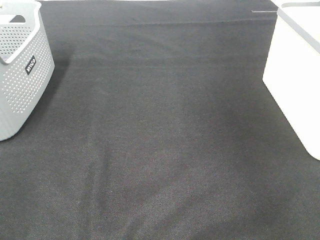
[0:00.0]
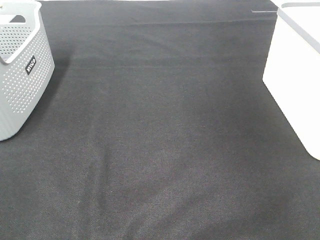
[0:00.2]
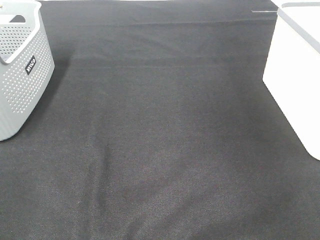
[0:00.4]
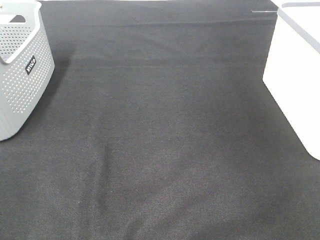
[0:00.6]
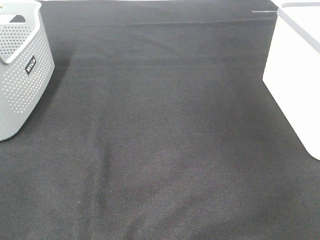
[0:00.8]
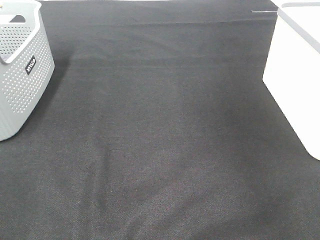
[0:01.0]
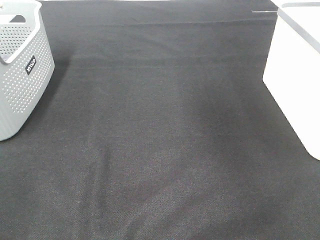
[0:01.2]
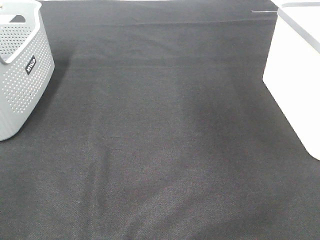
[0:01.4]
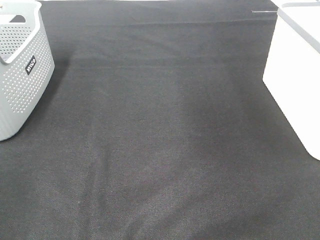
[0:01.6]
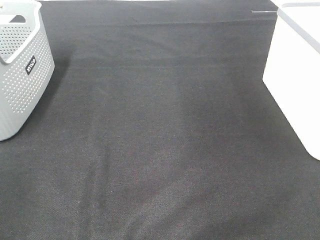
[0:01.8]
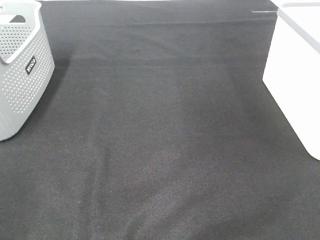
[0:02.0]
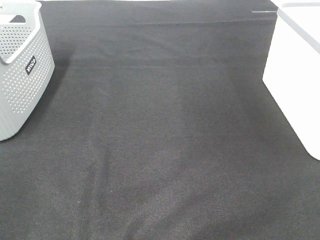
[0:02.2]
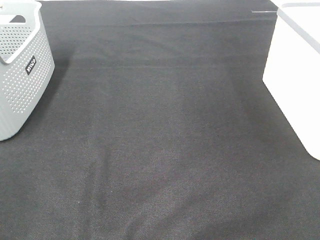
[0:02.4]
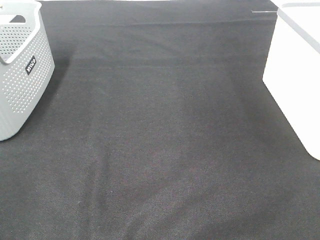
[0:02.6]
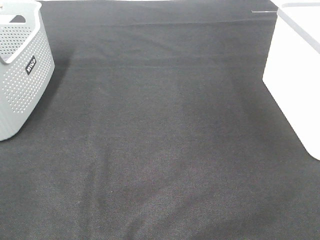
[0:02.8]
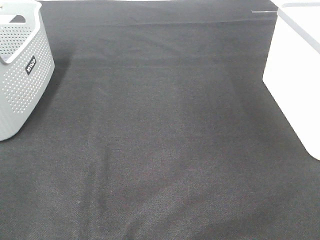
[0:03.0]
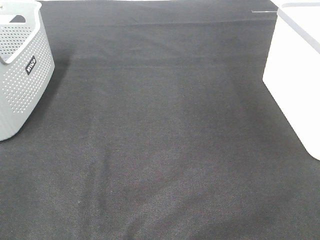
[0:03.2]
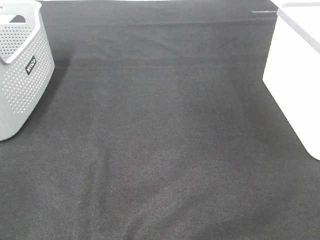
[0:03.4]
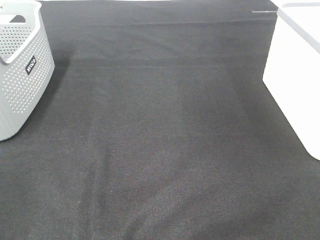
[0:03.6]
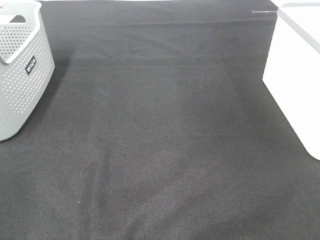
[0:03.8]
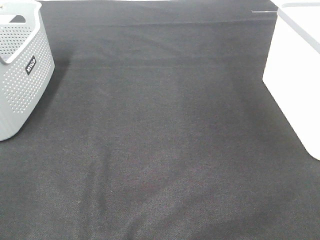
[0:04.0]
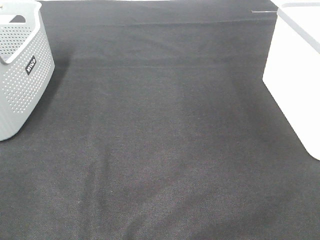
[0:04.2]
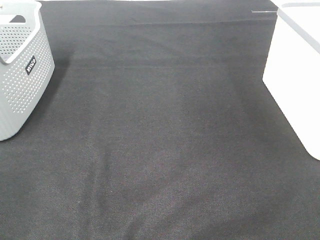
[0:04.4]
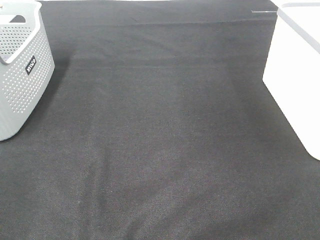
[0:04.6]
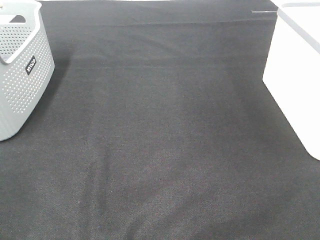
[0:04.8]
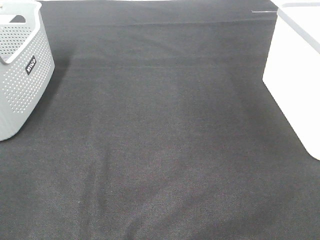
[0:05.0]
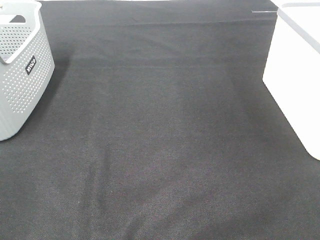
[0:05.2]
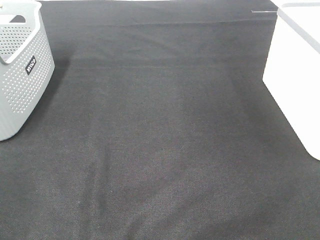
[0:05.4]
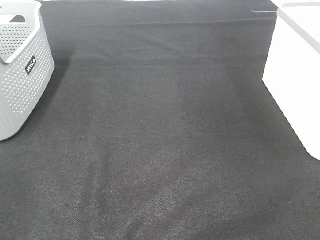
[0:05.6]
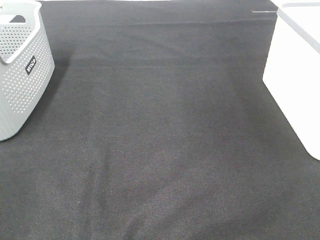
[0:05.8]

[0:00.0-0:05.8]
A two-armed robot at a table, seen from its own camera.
4.4 to 5.8 s: The two grippers keep their place.

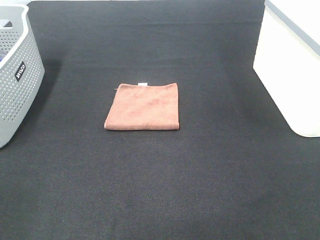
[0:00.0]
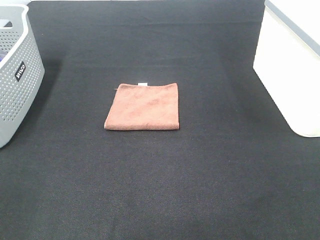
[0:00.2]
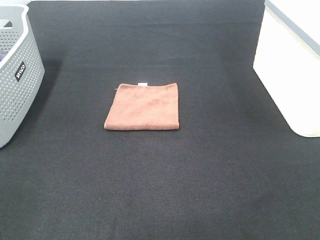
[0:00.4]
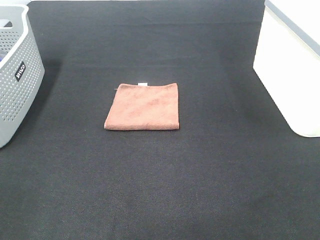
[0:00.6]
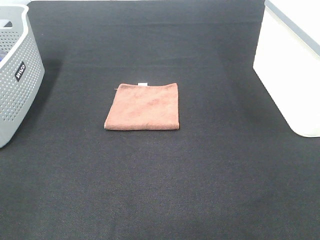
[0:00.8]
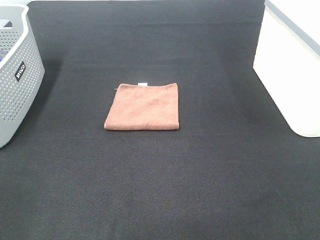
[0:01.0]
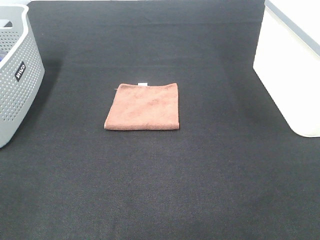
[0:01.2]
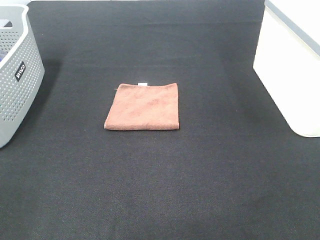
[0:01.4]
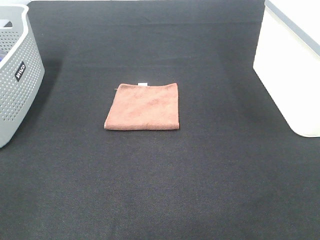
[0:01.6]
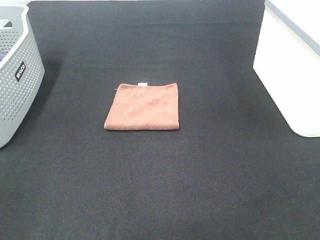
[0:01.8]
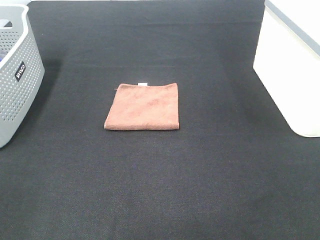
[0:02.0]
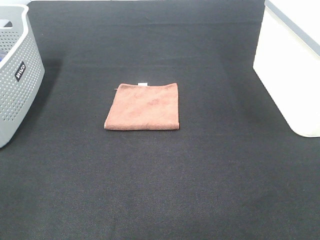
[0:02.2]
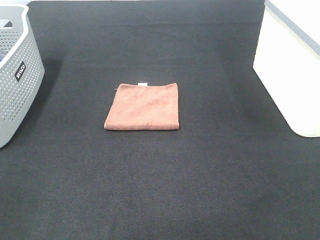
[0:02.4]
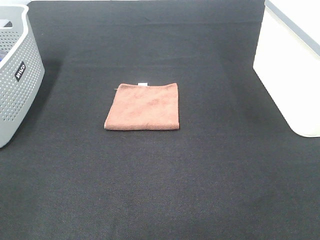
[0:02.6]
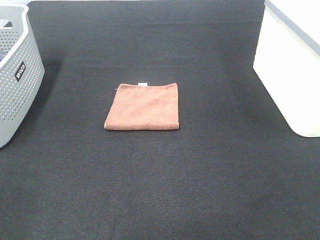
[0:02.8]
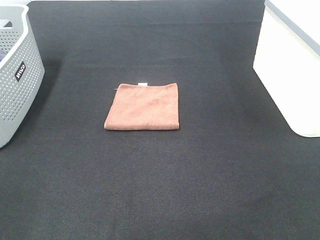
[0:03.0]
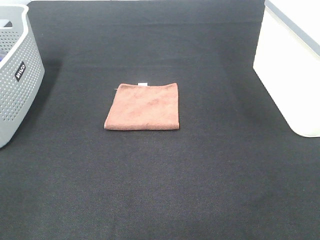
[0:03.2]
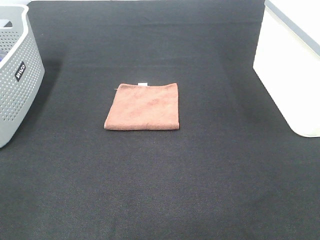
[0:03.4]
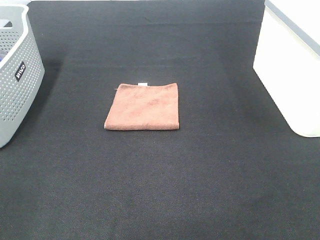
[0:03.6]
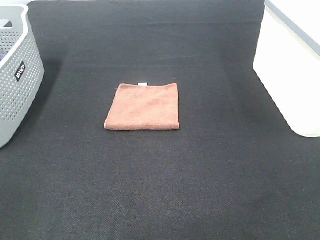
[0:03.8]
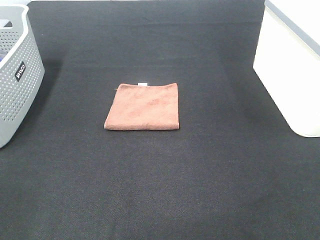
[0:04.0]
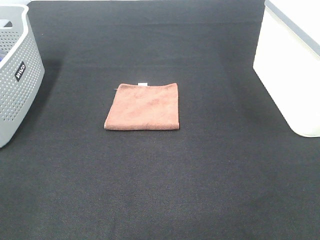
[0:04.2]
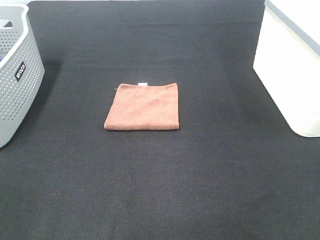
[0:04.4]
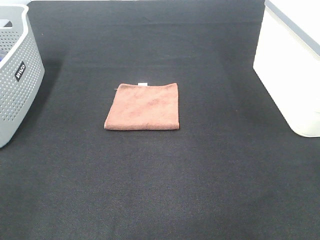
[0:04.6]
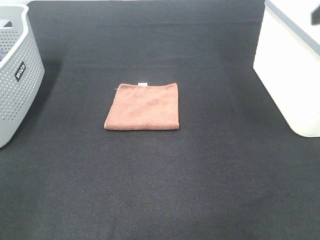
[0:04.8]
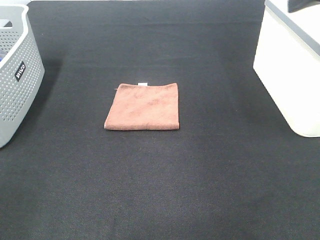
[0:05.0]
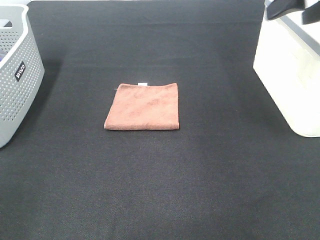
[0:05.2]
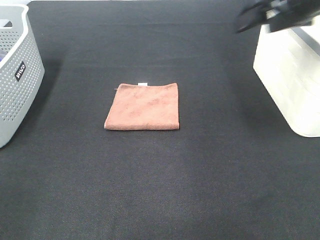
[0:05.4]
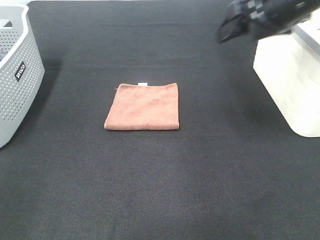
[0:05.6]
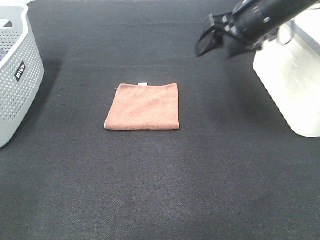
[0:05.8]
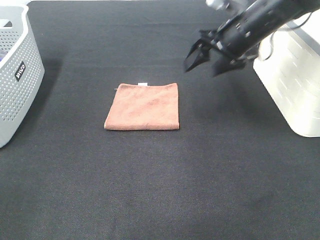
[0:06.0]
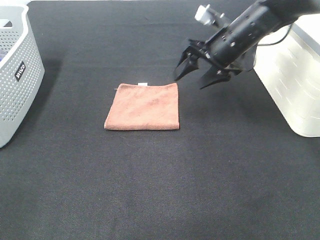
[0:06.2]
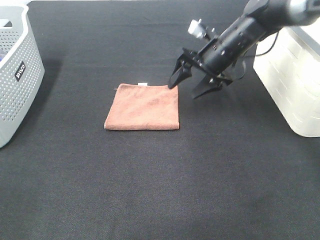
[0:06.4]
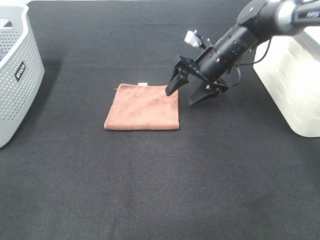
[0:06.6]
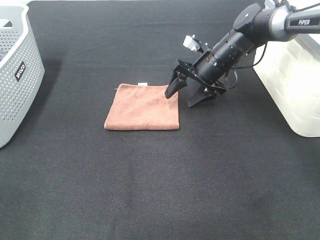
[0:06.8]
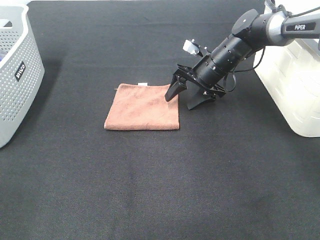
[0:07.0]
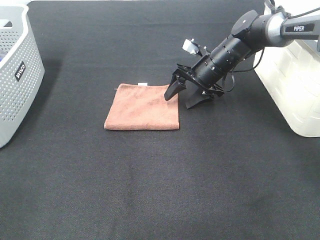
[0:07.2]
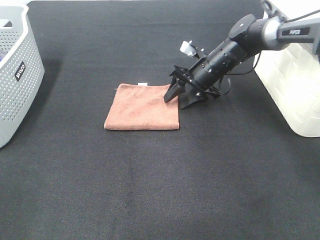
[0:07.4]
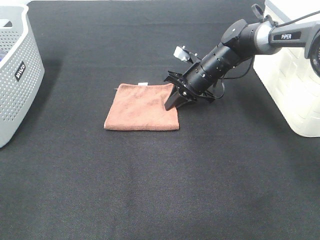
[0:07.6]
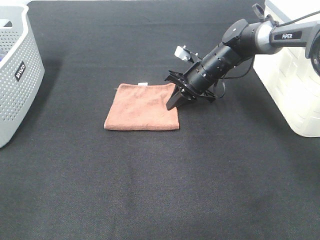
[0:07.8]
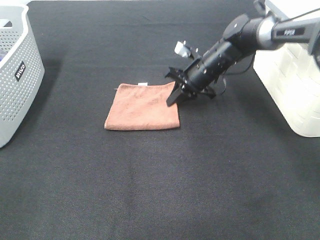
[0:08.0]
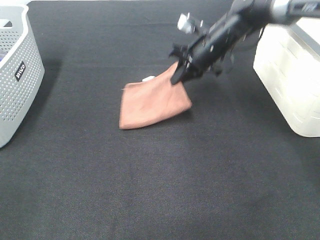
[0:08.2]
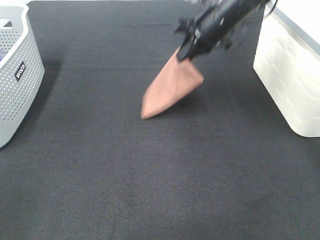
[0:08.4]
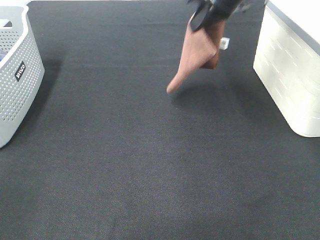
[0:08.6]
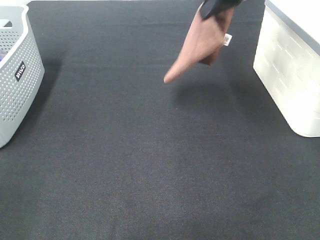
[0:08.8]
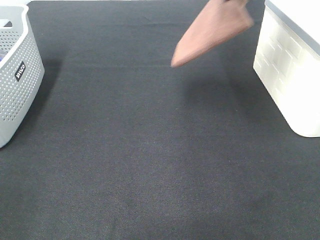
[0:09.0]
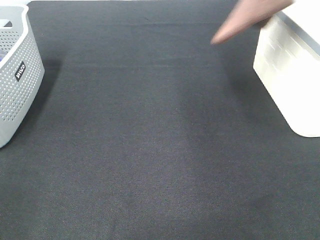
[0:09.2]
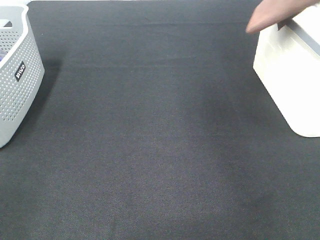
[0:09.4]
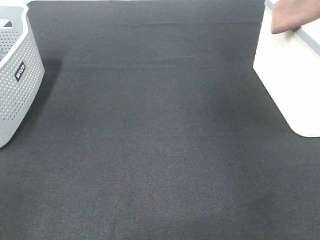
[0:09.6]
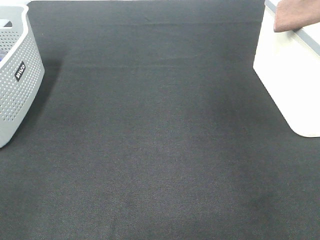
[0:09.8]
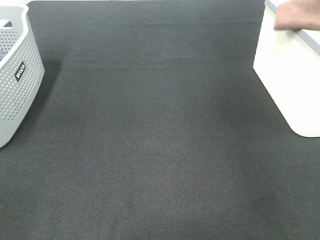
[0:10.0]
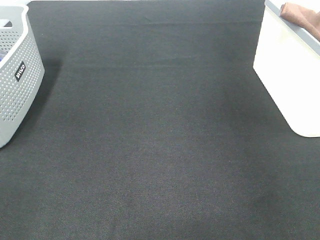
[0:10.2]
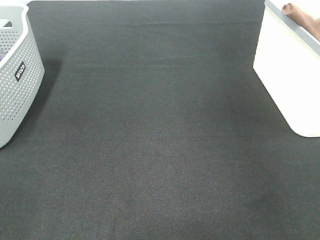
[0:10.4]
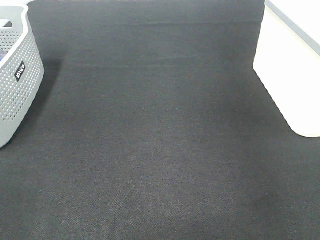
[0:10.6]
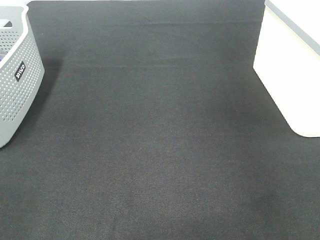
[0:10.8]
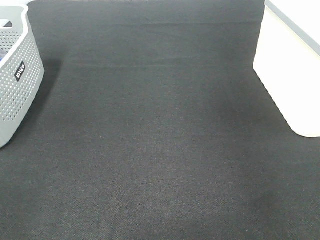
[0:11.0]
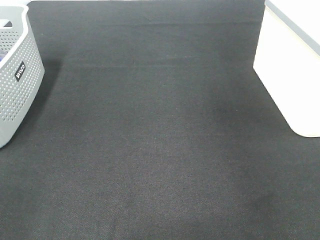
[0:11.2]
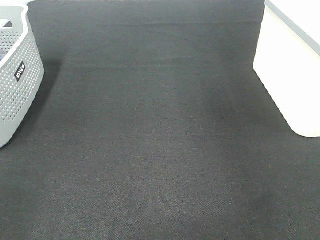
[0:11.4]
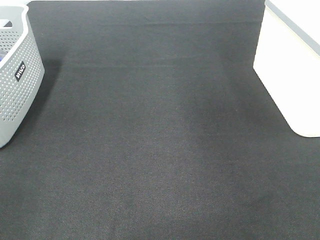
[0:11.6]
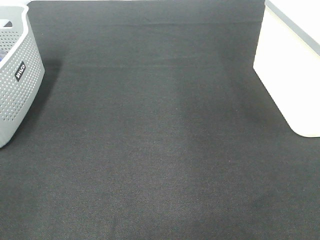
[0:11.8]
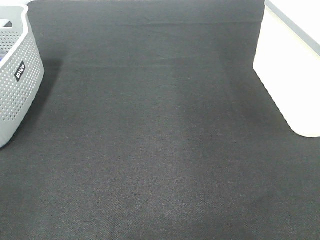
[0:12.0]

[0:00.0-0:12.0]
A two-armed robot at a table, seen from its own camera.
Step, 0.0 to 7.8 s: Right hand: grab the folded brown towel.
Step, 8.0 to 10.8 s: Right hand: place the brown towel in right basket.
0.0 to 3.0 s: Both grippers stay about where they are.
4.4 to 6.0 s: The right gripper shifts about 35 cm forward, downward and to the left.
6.0 to 7.6 s: The right gripper moves downward and forward, approximately 15 cm, and closes up.
7.6 to 9.0 s: The right gripper travels upward by about 30 cm.
9.0 to 10.4 s: The right gripper travels to the right by about 20 cm, and opens its fingers.
10.4 to 12.0 s: The right gripper travels backward, to the left and upward by roughly 20 cm.

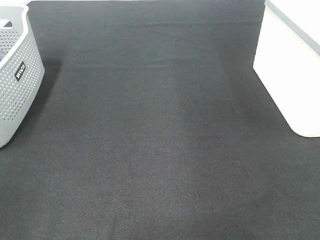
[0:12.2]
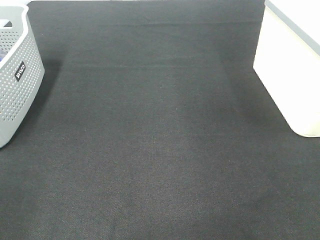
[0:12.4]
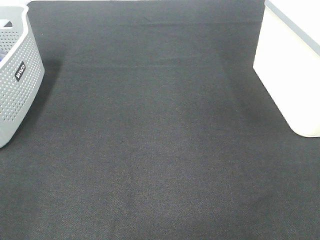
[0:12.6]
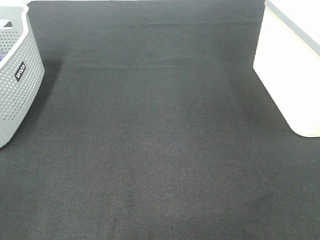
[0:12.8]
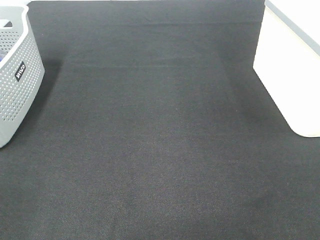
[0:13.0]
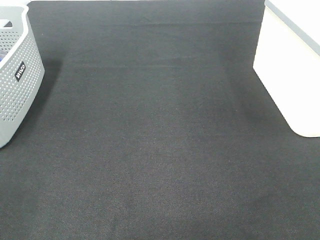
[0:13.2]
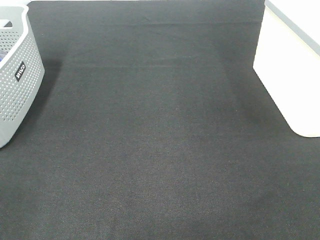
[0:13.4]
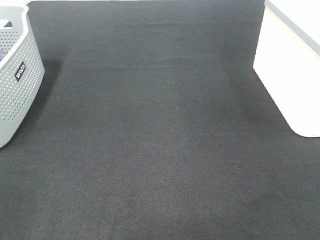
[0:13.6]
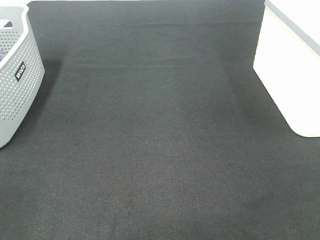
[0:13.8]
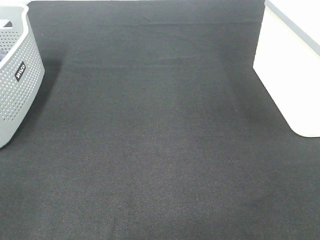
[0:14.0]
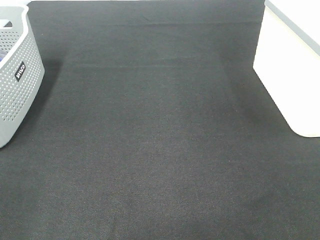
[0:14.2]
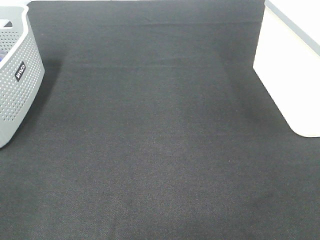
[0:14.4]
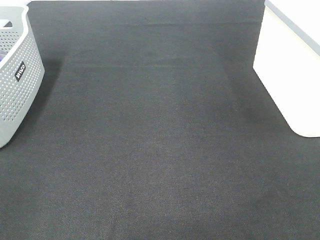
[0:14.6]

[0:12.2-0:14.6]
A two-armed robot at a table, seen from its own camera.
13.4 to 14.6 s: Both grippers stay put.

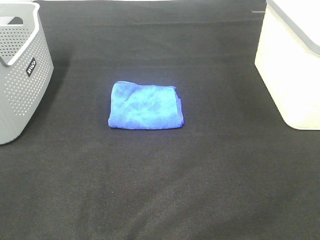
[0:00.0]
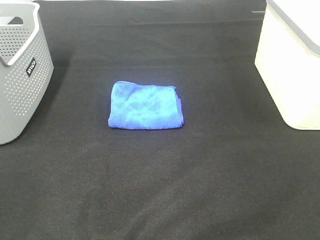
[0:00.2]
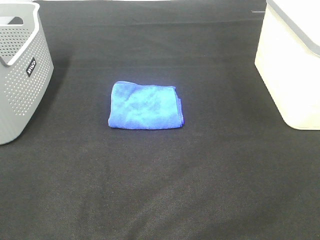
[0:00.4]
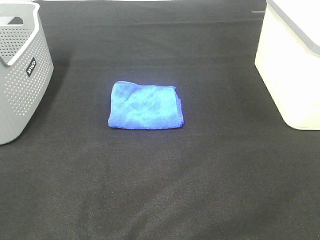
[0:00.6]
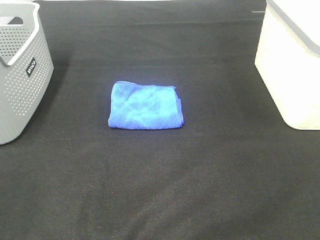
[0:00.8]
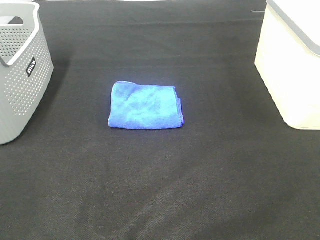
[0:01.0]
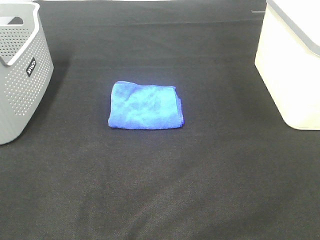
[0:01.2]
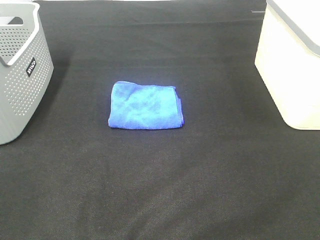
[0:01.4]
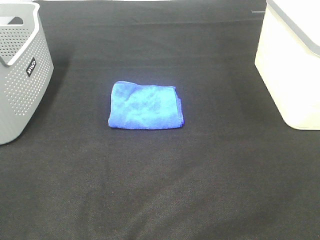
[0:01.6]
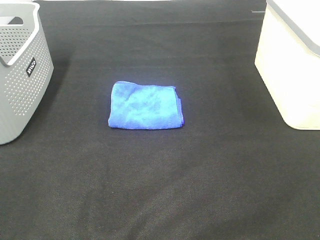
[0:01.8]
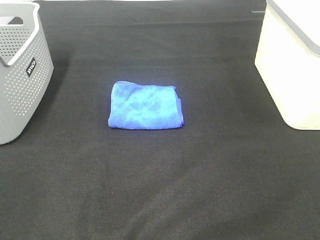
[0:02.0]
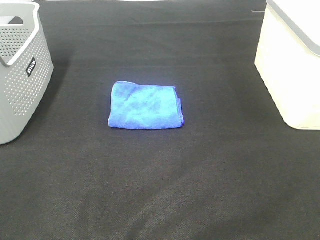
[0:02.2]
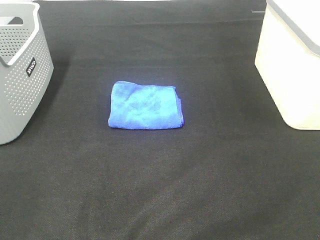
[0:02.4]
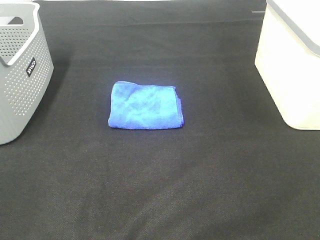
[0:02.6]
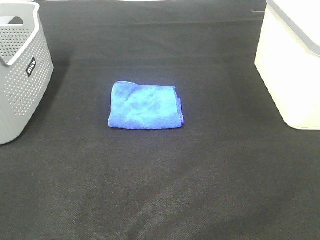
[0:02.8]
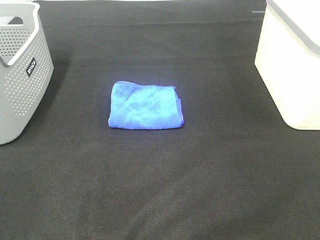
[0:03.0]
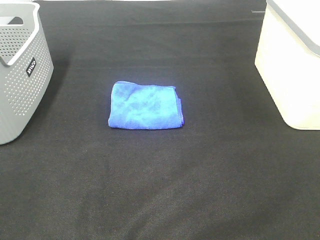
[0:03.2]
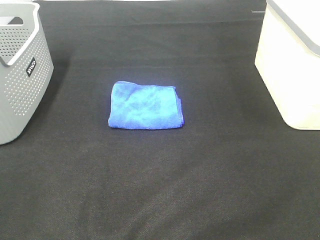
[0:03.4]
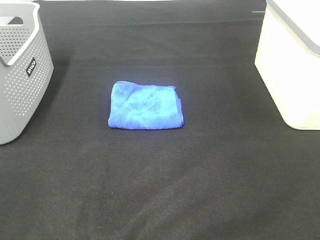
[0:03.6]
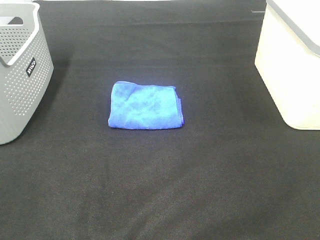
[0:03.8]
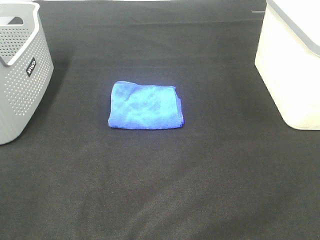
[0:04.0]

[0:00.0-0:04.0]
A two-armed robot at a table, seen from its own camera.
0.0 to 2.6 s: Both grippers stay put.
